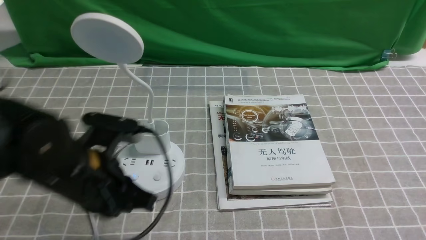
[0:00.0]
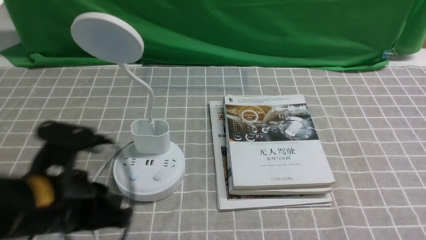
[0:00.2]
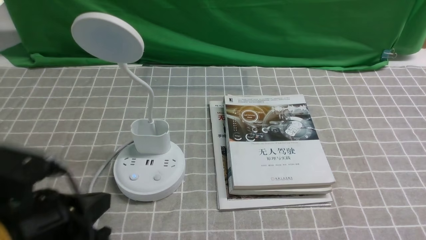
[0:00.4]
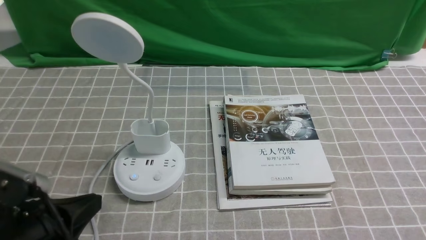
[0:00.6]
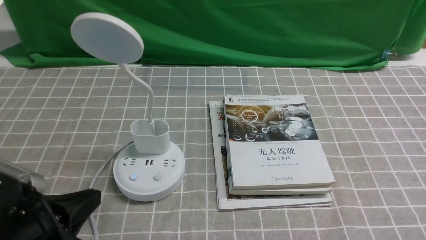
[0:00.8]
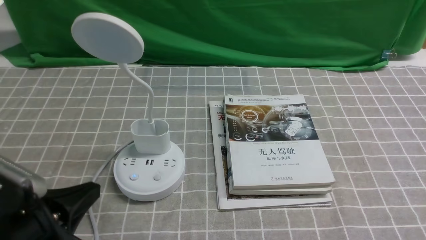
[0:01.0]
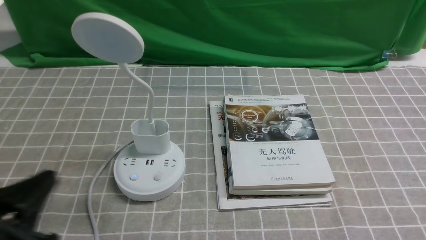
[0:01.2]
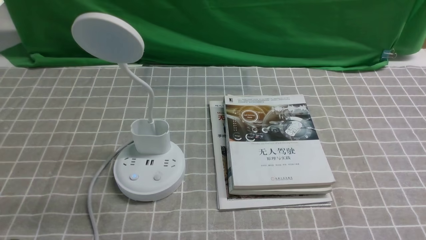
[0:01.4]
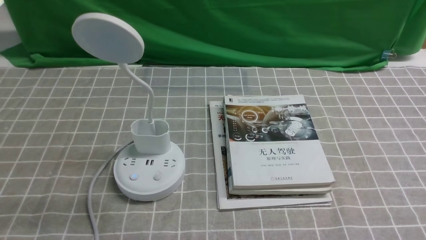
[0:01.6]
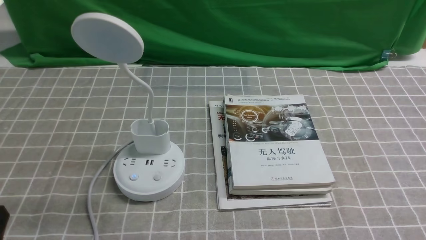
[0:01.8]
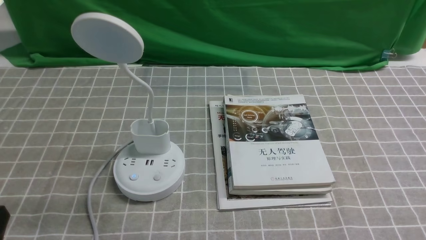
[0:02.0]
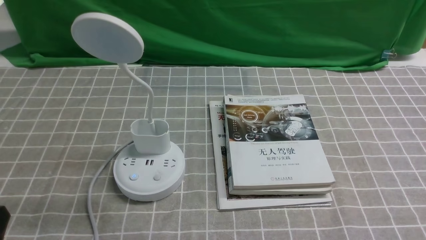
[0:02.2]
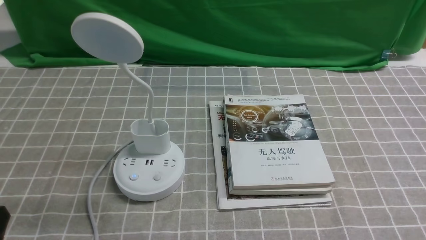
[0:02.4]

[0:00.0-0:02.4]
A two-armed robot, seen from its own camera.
Task of the whole recording: turn off the desk lamp on the grey coffee tablecloth by hand.
0:00.0 to 0:01.2: The left gripper travels backward and to the left by about 15 cm.
0:01.2 to 0:02.4: The left gripper shifts by about 5 cm.
